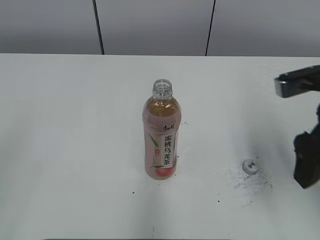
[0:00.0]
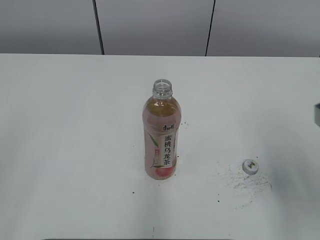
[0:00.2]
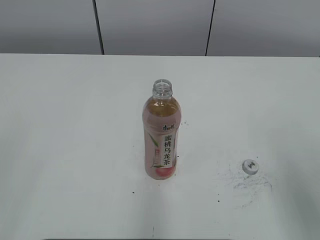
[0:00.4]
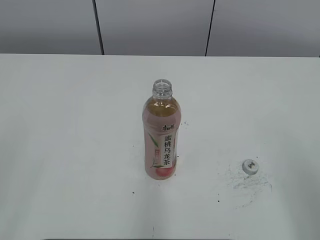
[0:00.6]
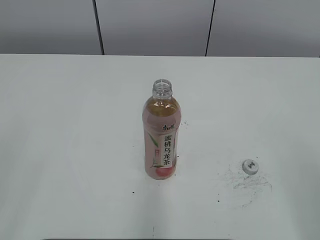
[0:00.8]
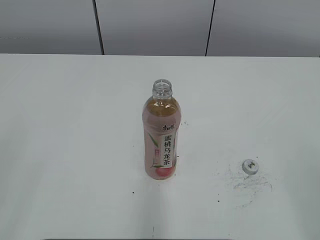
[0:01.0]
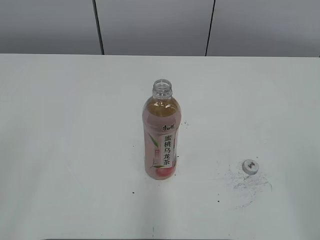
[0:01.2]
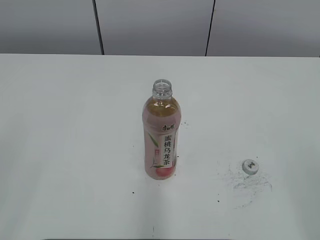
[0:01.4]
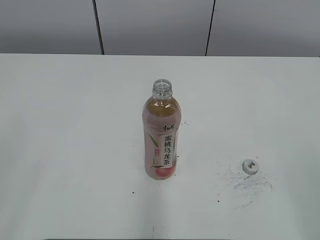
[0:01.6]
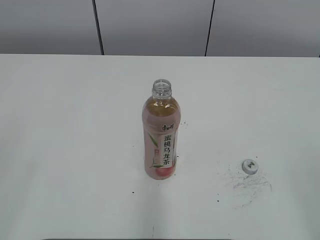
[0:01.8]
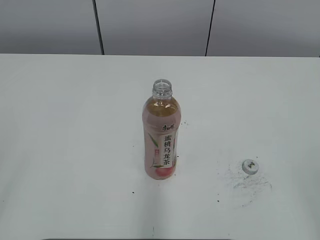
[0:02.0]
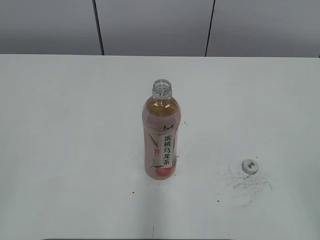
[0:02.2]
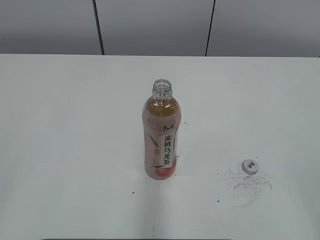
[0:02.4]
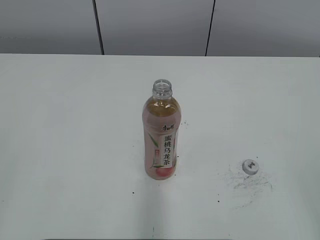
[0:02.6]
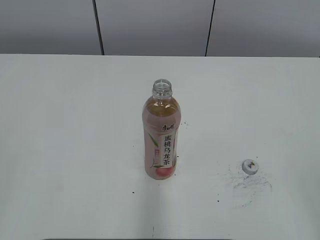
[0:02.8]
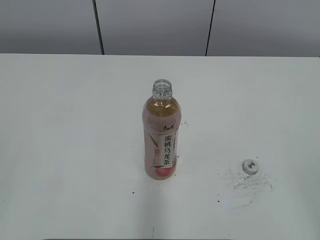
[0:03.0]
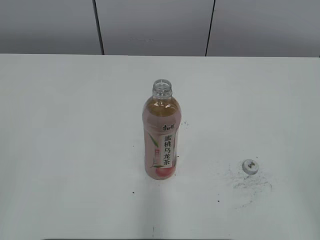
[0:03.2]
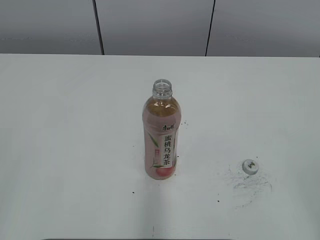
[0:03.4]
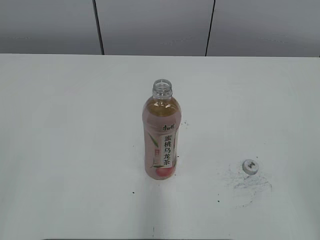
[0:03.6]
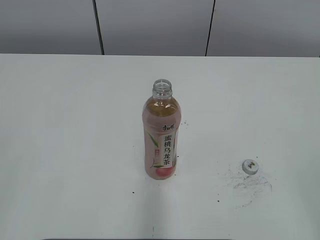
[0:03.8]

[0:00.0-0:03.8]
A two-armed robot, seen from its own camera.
0.0 to 1.2 s: The right gripper travels backward by approximately 20 cm.
2.6 to 3.8 s: Both grippers stay about where they are.

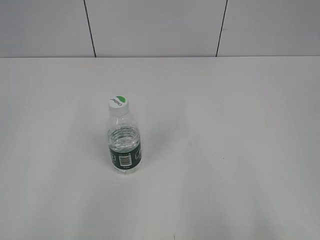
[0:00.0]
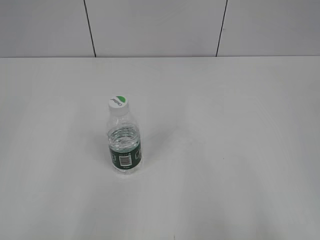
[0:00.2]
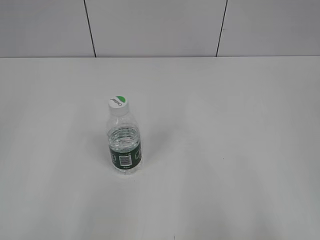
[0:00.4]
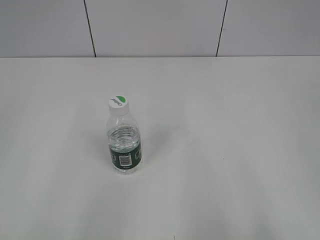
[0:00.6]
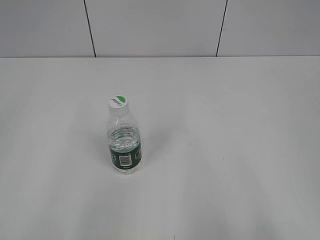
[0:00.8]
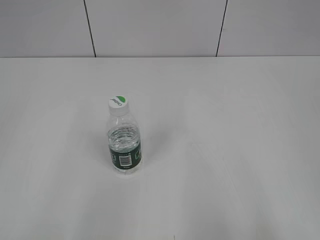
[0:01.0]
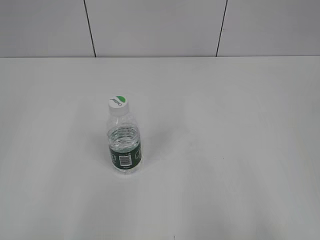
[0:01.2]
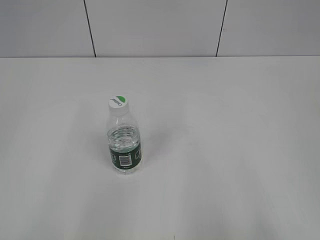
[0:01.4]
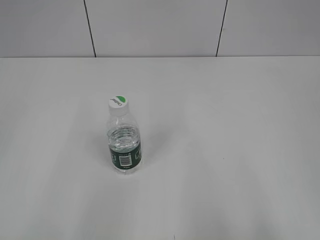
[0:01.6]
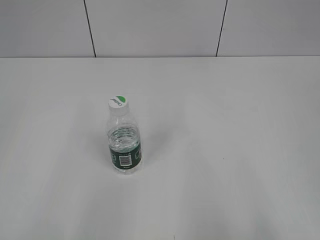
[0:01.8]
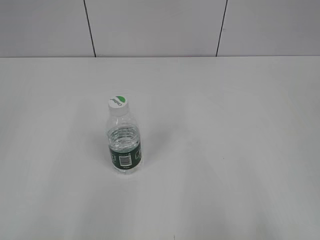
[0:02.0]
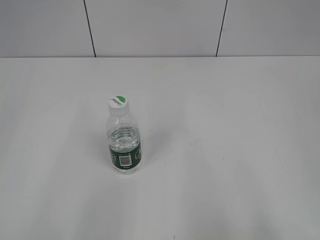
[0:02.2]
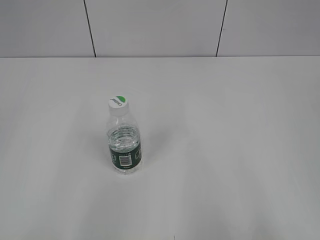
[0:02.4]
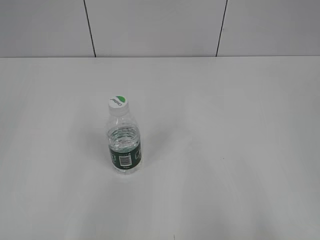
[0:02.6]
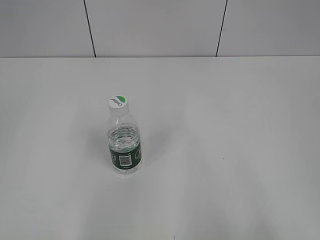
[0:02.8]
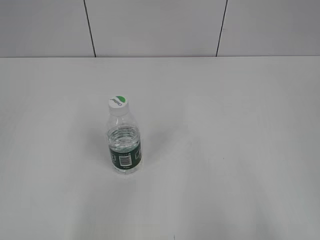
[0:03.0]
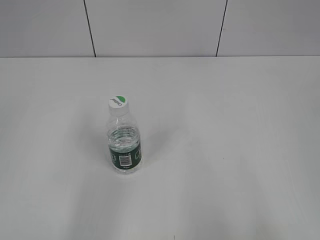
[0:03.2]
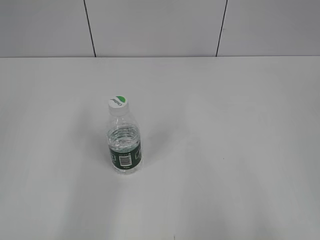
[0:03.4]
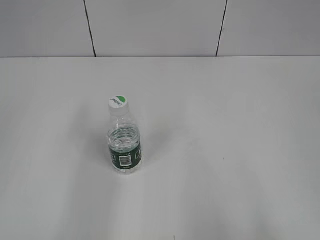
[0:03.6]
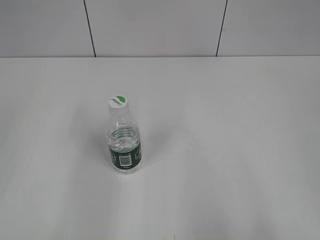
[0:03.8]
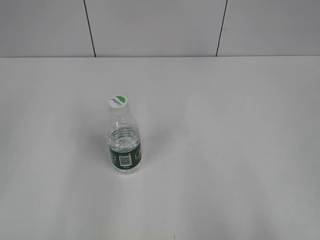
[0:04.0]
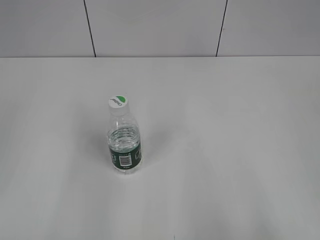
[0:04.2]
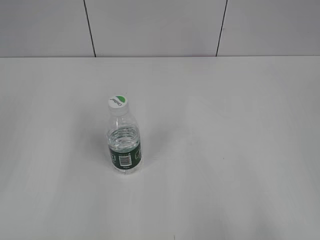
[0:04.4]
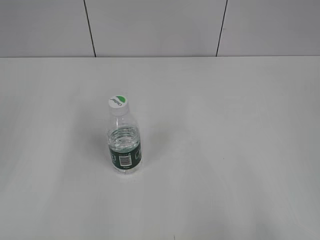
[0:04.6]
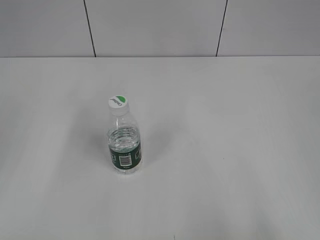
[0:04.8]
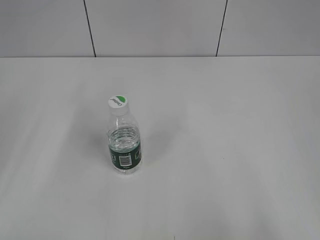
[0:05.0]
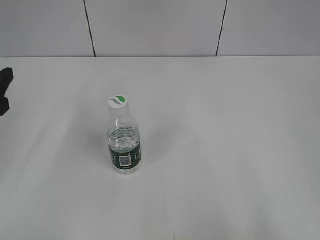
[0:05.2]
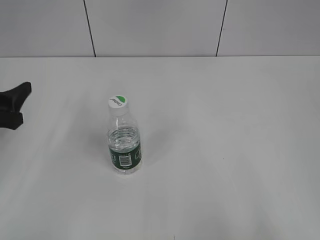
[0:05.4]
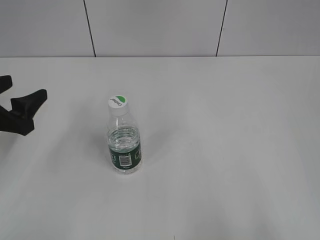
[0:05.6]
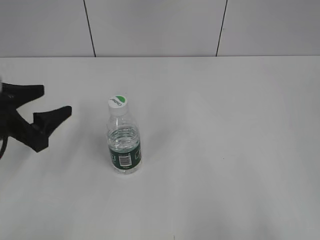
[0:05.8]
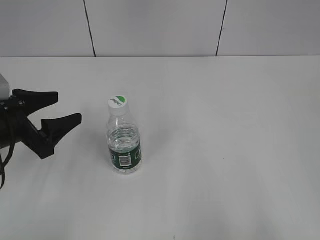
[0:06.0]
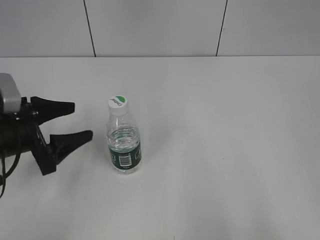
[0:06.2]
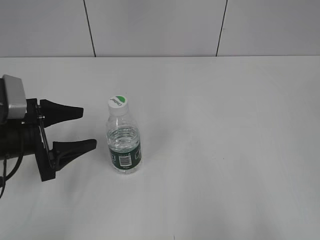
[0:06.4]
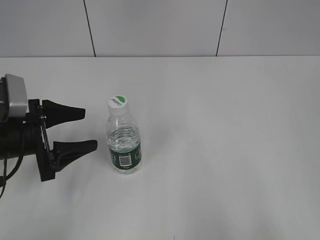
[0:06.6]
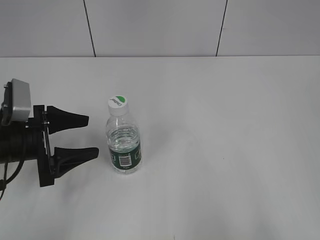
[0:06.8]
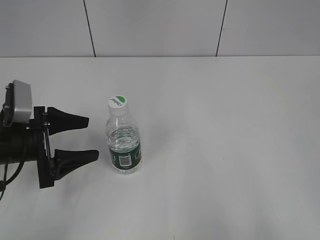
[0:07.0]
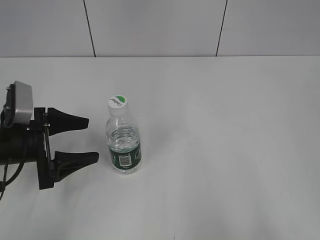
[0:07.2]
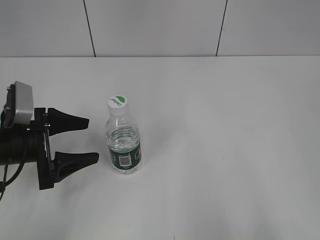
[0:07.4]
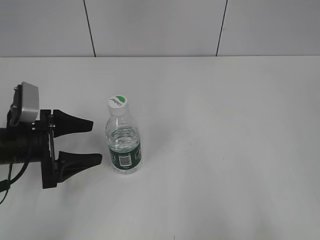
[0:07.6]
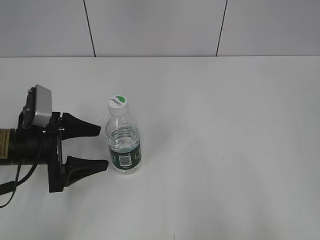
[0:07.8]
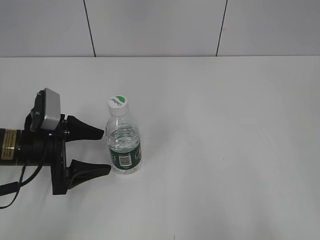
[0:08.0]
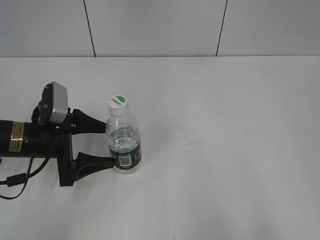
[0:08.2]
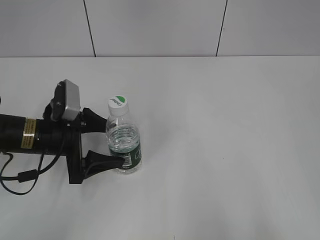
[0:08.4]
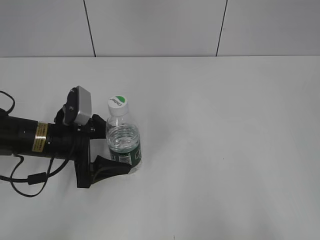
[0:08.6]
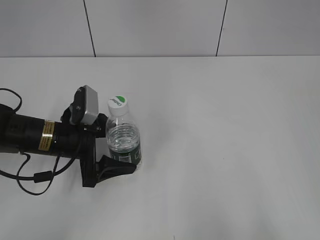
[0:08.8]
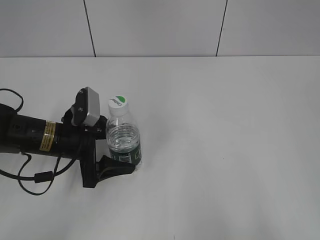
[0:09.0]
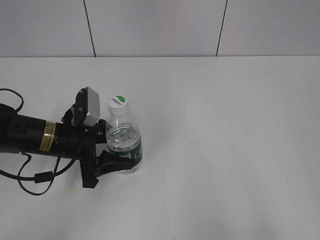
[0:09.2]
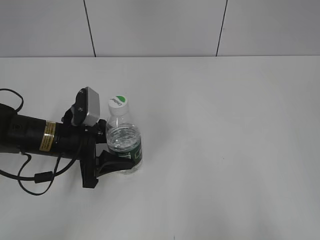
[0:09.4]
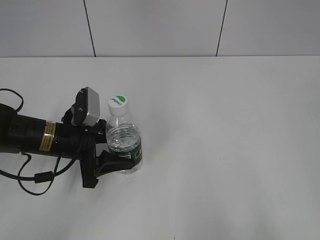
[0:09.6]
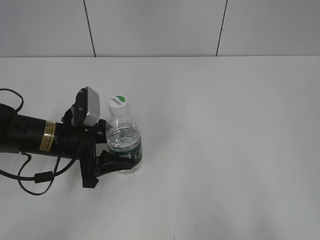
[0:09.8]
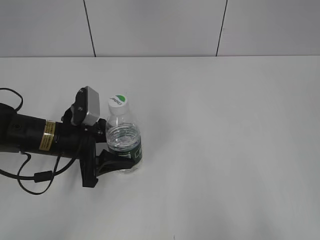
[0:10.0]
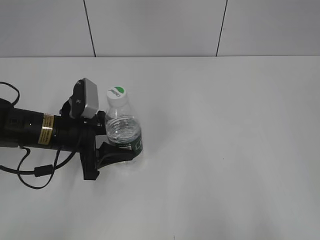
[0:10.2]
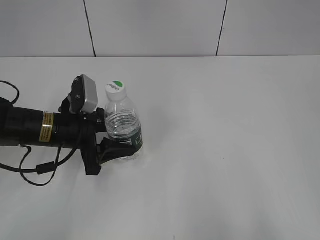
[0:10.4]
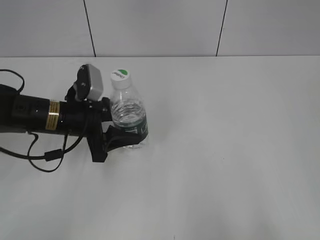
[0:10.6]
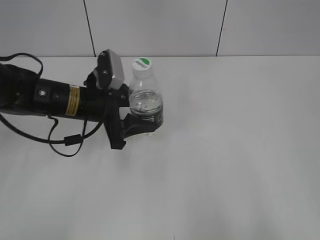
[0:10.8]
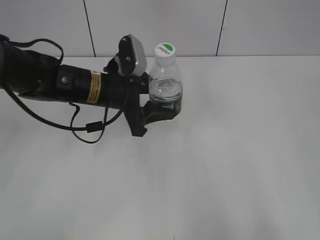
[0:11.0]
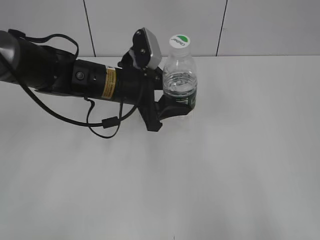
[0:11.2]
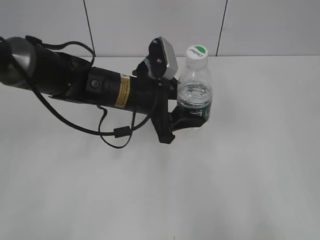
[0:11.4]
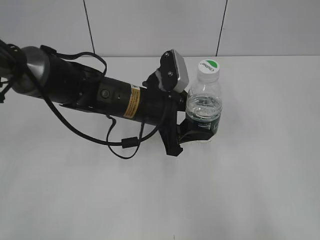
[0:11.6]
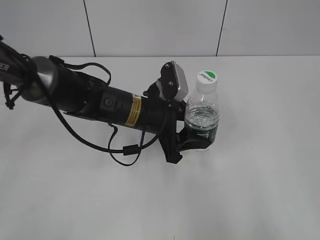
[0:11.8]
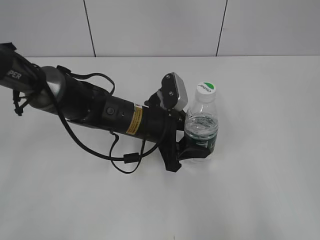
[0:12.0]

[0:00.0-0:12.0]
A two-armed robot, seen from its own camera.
Step, 0.0 to 9.4 s: Grasp the bottle and move it to the center of the table with the left gripper.
4.4 to 6.0 s: The left gripper shifts approximately 15 cm downward, forward and to the right.
7.6 to 9.0 s: The left gripper heads to the right, covering about 5 cm.
9.0 to 10.4 s: The left gripper closes.
10.4 to 12.0 s: The left gripper shifts about 15 cm to the right.

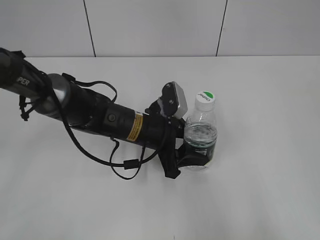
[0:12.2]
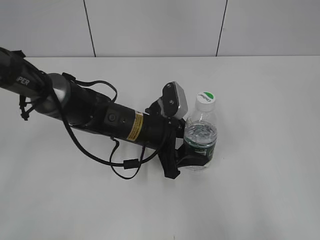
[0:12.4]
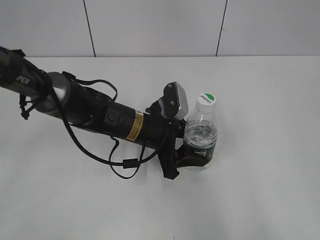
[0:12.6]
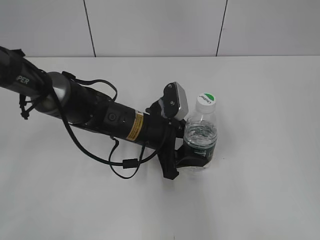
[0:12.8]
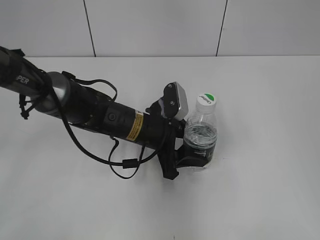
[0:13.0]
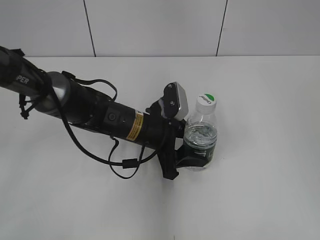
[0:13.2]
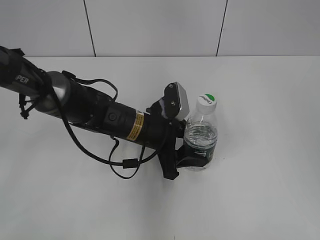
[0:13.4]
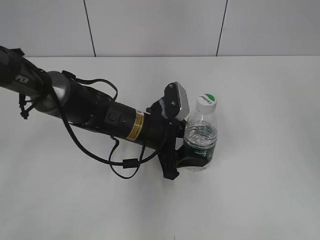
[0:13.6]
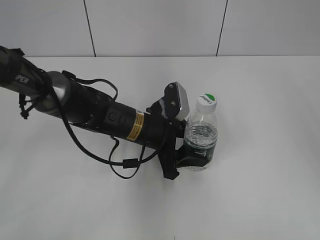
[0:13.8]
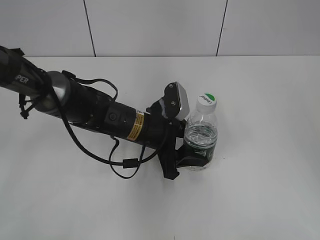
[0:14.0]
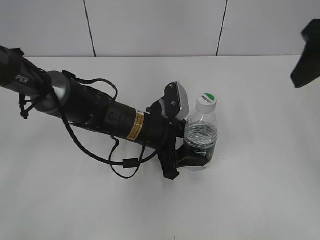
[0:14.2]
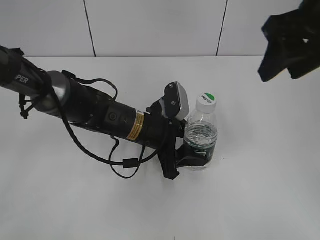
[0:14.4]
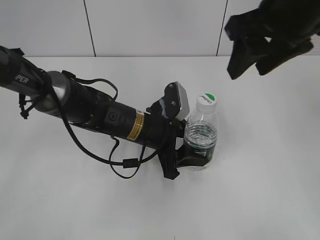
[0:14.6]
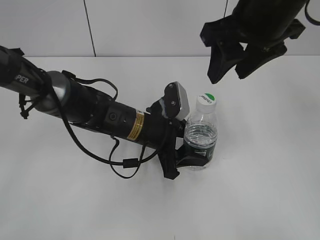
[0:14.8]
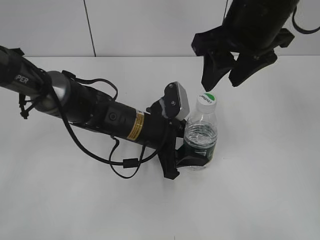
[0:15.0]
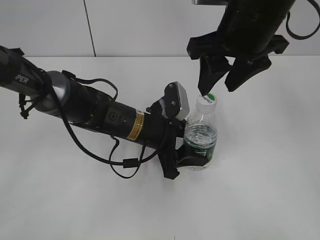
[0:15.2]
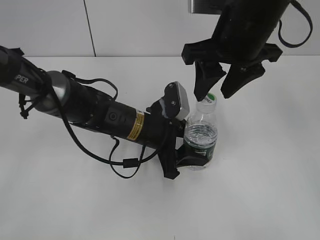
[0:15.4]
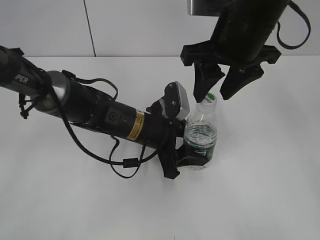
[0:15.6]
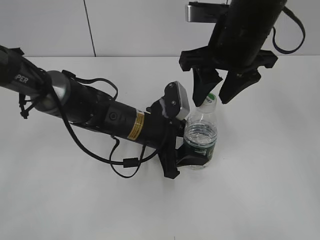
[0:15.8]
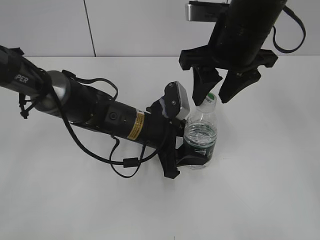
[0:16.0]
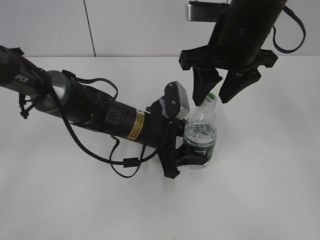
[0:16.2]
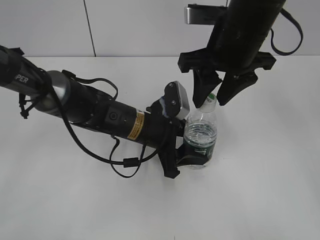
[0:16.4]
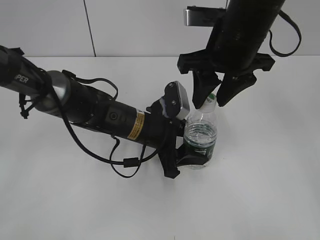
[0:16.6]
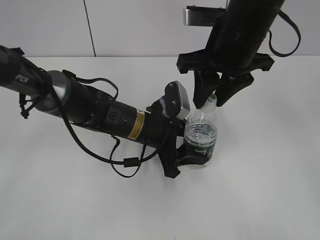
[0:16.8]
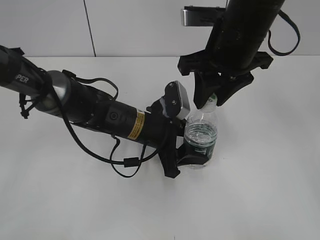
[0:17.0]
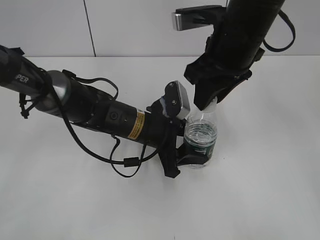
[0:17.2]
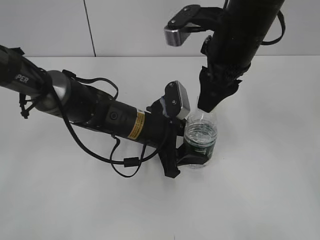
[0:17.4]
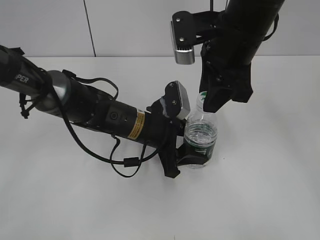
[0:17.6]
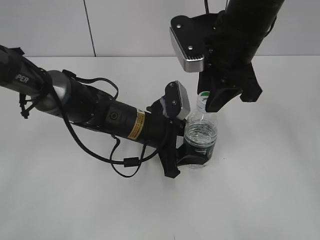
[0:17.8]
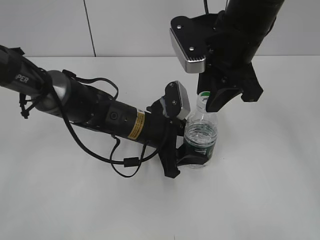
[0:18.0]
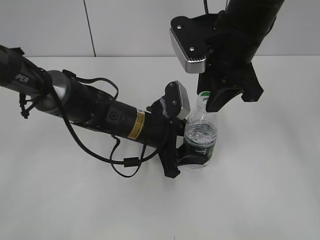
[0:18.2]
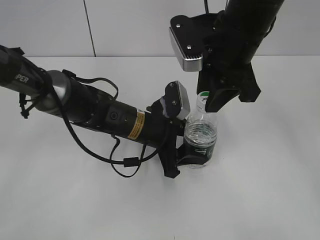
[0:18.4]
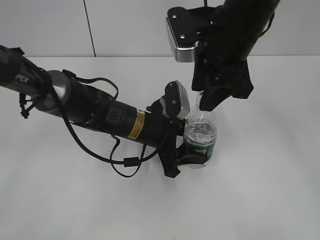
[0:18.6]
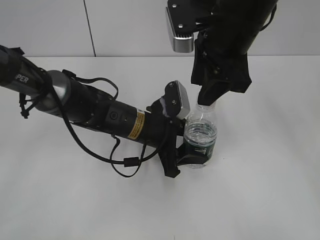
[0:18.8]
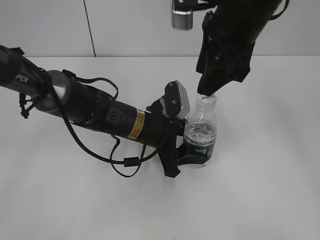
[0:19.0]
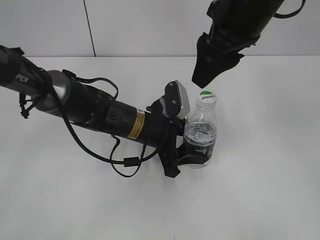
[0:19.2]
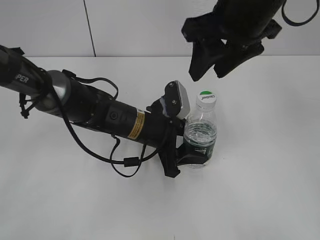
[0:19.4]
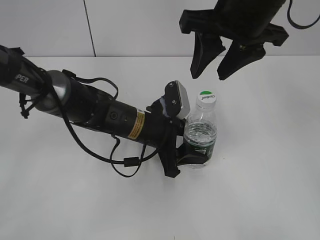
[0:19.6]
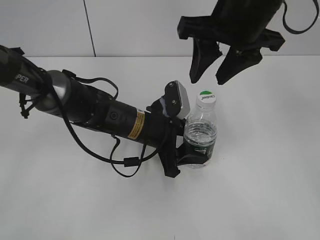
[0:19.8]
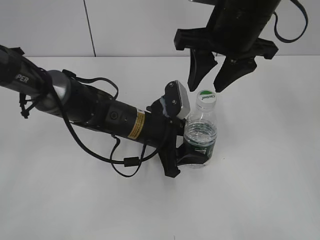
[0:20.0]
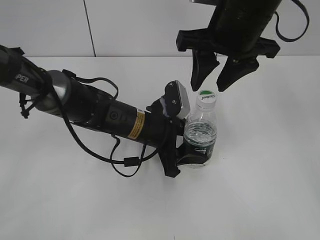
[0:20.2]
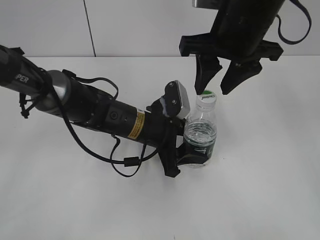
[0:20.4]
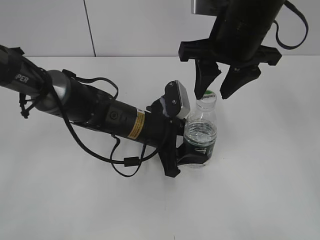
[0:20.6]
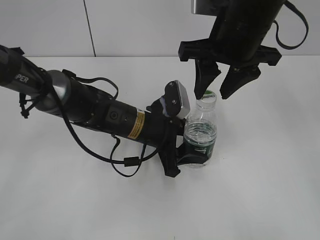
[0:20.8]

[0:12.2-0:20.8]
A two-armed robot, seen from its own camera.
12.2 to 13.6 s: The right gripper heads forward and upward, covering about 25 cm.
13.6 to 15.0 s: The right gripper goes some 20 cm to the left, forward and downward.
15.0 to 16.6 s: There are only small adjustments of the grippers.
18.0 to 19.4 s: The right gripper moves upward, some 5 cm, and opens.
19.4 to 20.8 s: The grippers move only a little.
